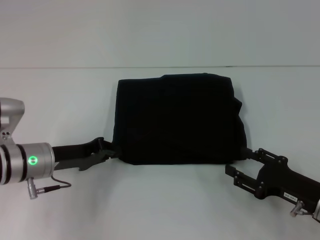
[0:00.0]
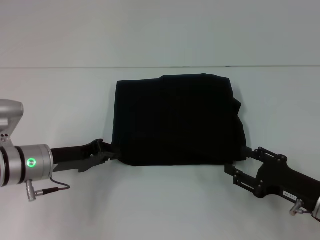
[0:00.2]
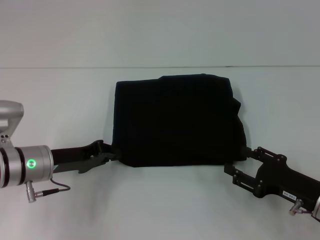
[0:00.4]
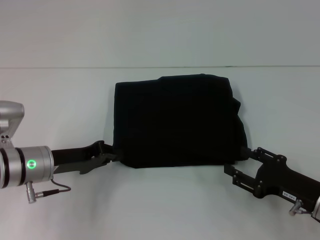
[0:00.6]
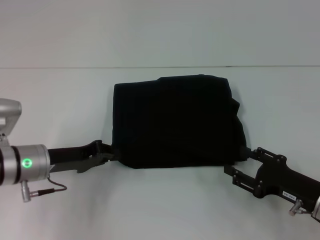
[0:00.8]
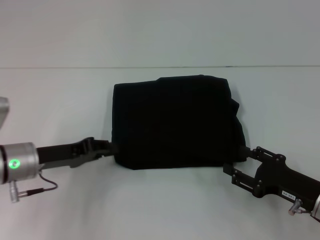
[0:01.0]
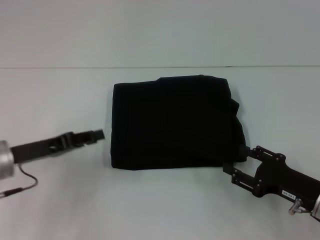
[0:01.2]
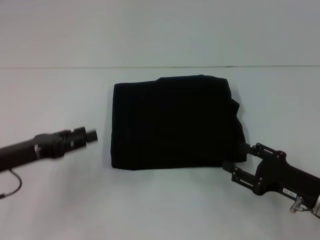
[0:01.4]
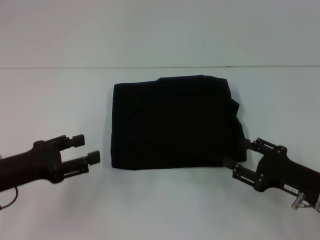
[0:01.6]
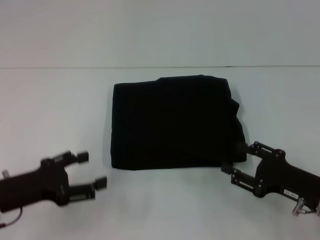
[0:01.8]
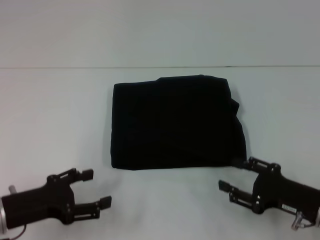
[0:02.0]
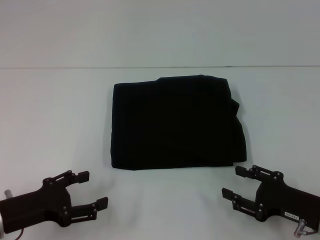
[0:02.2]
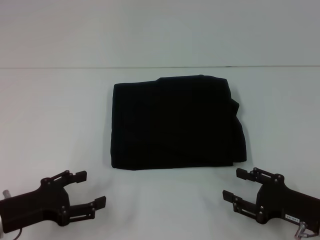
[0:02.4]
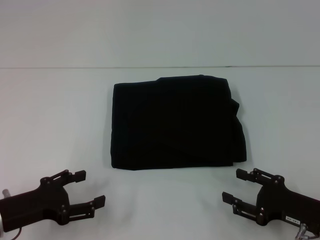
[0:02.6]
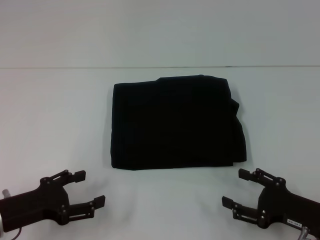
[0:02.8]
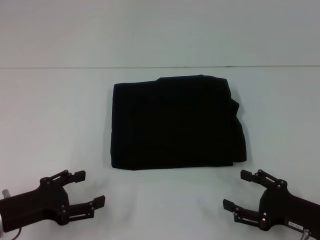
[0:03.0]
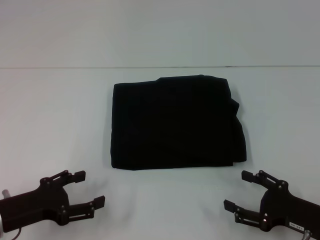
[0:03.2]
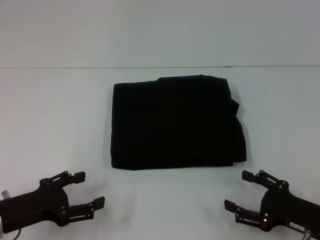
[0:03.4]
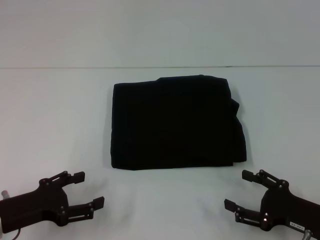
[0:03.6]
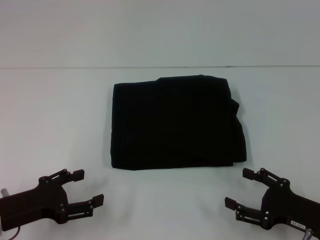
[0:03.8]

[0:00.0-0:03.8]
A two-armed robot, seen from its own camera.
0:00.0 to 0:01.2: The left gripper shifts by some 5 cm.
0:01.2 to 0:02.6: The left gripper goes roughly 10 cm backward, and opens its fingers.
0:02.6 to 0:03.8: Both grippers stay put.
